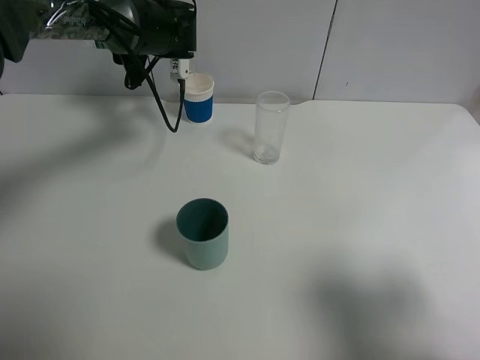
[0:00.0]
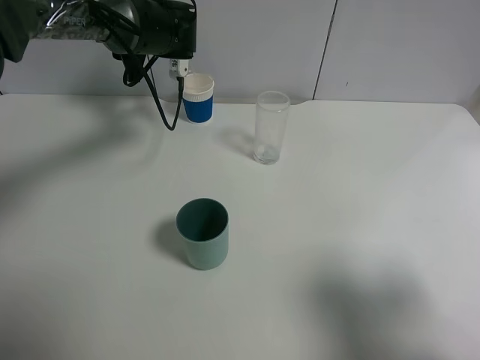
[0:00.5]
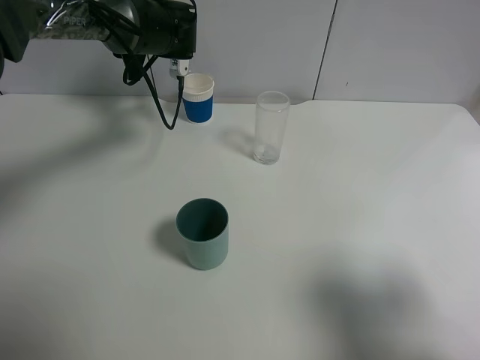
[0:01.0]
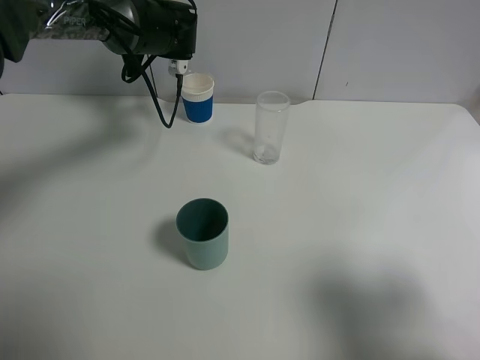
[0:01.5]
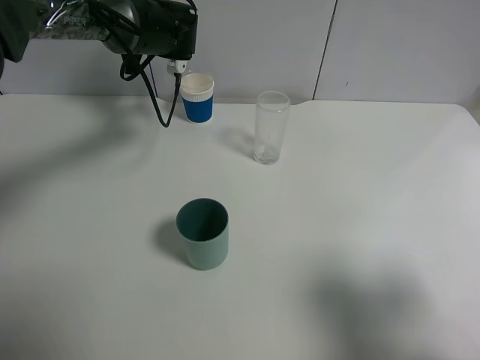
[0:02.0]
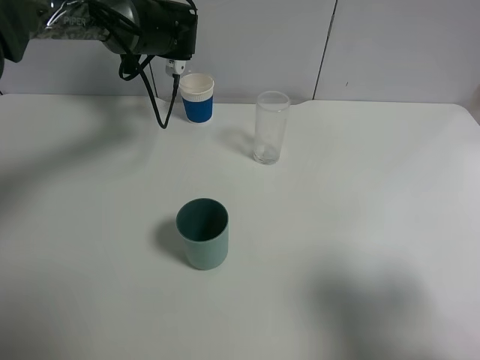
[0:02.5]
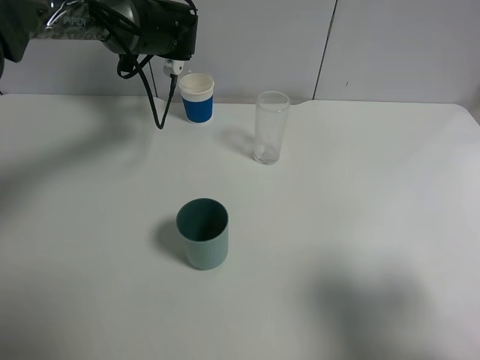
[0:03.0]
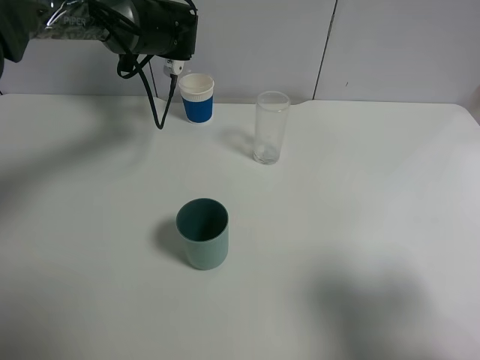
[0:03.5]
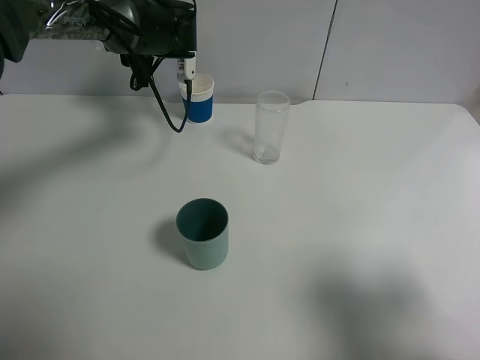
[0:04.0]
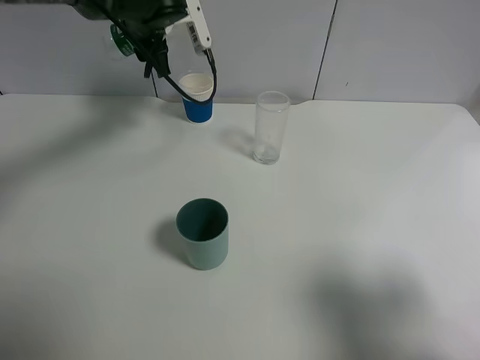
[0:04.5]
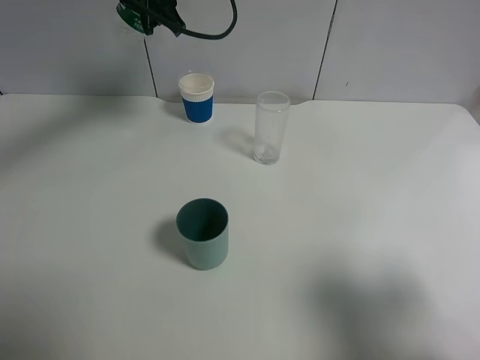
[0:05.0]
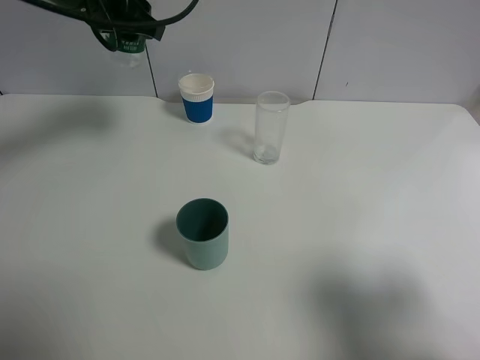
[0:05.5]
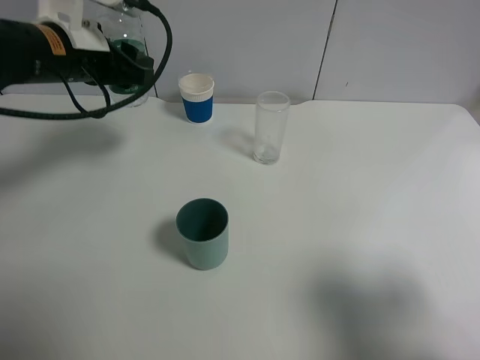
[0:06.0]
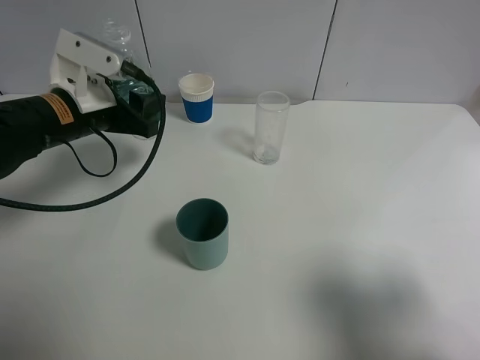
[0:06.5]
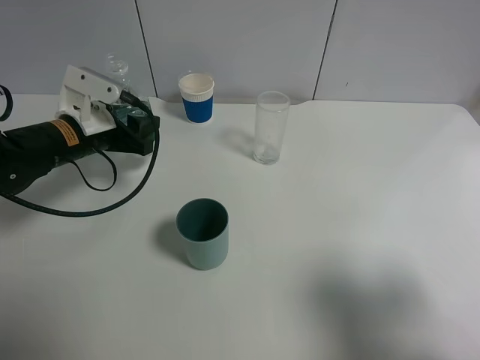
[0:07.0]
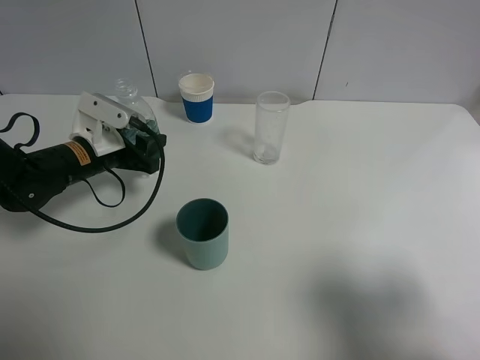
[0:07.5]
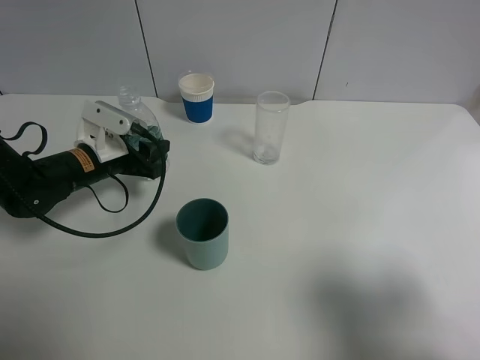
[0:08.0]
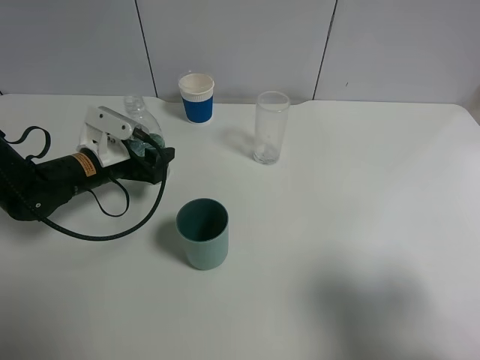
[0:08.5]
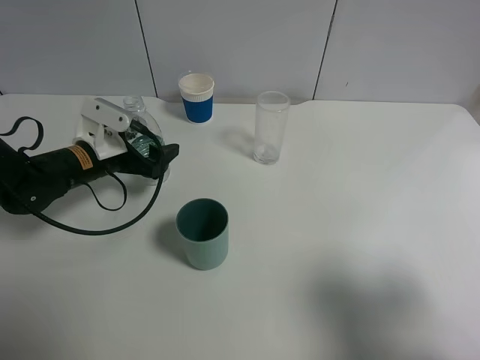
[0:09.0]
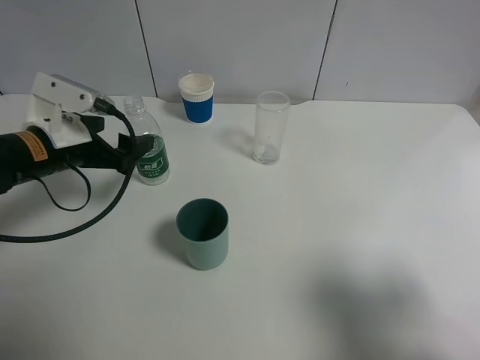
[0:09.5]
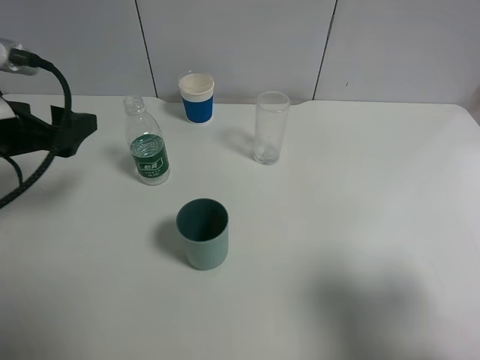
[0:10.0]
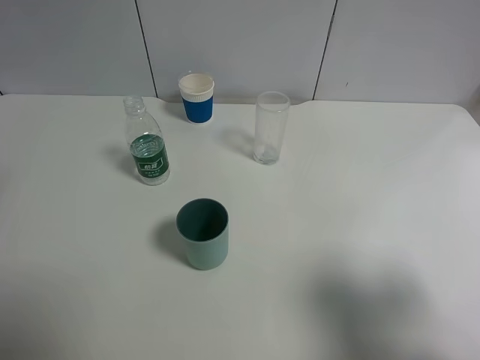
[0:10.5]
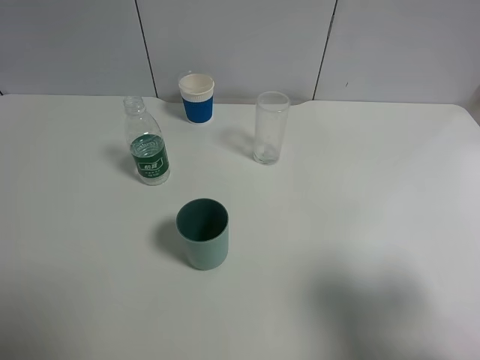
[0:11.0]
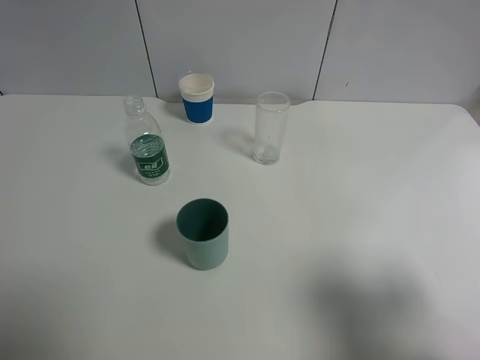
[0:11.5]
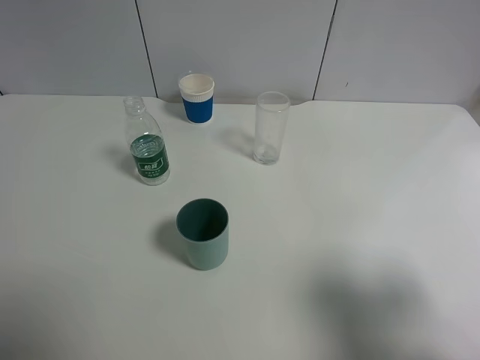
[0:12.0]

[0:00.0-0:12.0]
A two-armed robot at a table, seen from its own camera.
Task of the whole recording: use a gripper to hold the bottle of the drink and pour it into a random cup.
Step, 0:00.0 to 0:04.0: Pour the mineral water into the paper cup with the left gripper.
Step, 0:04.5 to 0:08.5: Place the mineral water bottle on the table with the left gripper.
0:00.0 to 0:04.0: The grippers move only a little.
0:04.0 to 0:06.0: The left gripper heads backward and to the left, covering approximately 15 cm.
0:06.0 to 0:08.0: The left gripper heads downward, covering about 15 cm.
0:08.0 to 0:10.0: The left gripper is displaced upward and backward by approximately 20 cm, and opens.
0:10.0 to 0:12.0: The left gripper travels backward and upward by approximately 25 cm.

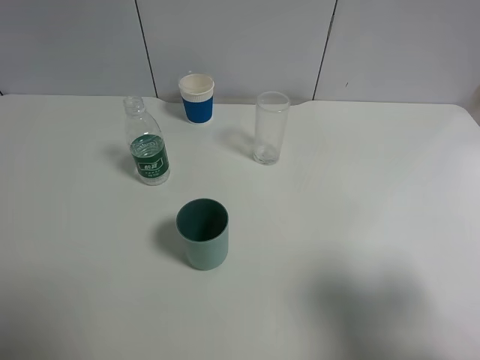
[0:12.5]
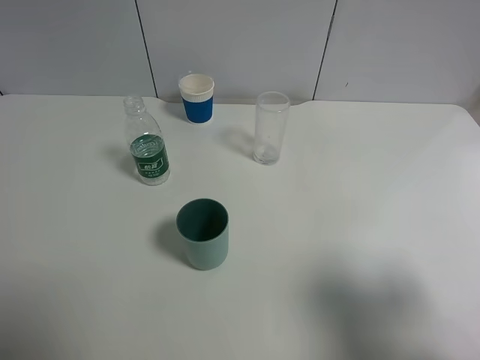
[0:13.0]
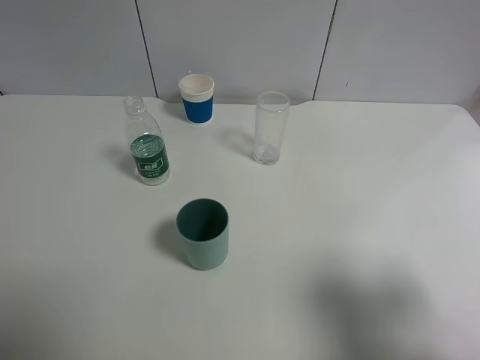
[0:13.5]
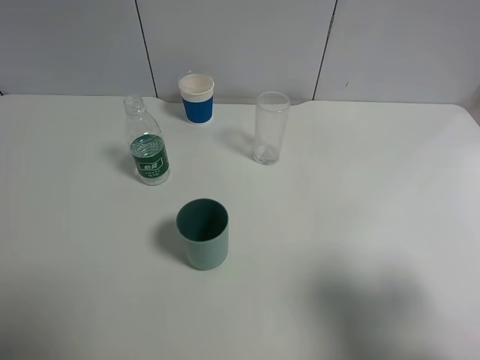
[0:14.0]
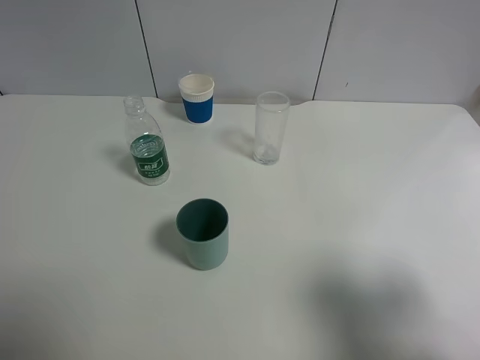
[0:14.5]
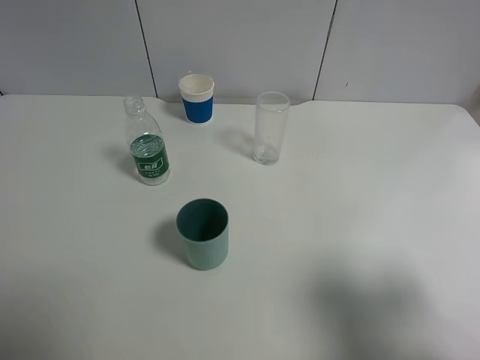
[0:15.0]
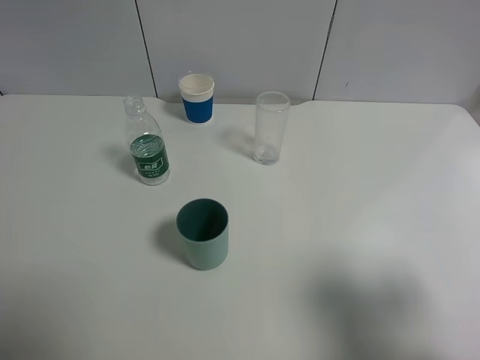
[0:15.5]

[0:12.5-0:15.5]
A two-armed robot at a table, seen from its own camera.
Task of the whole recording: use a gripper to hold the bottle of the drink and pour it into a random cup.
0:14.0 to 0:15.5: Neither gripper changes place.

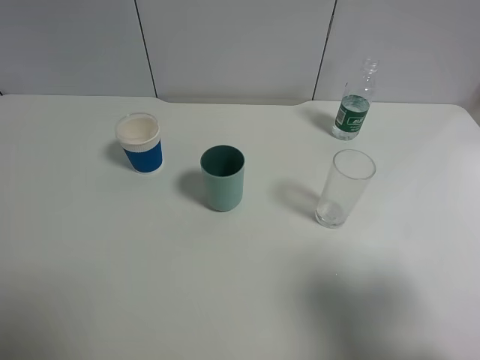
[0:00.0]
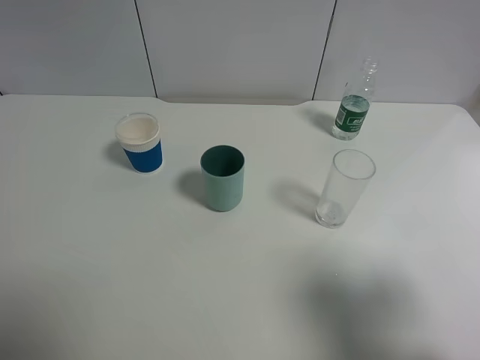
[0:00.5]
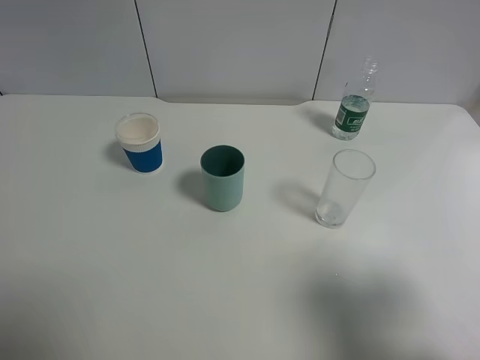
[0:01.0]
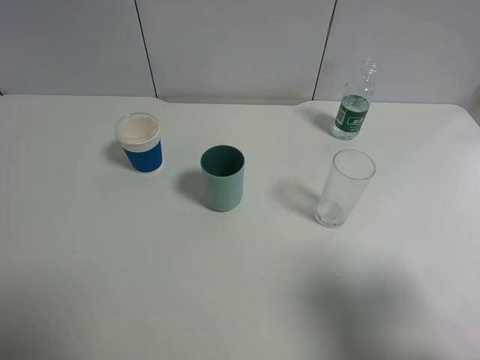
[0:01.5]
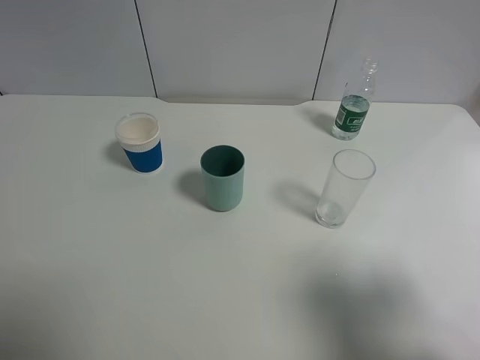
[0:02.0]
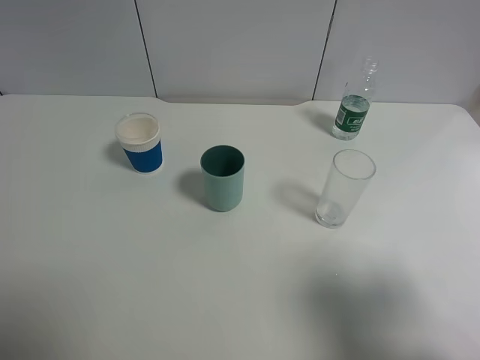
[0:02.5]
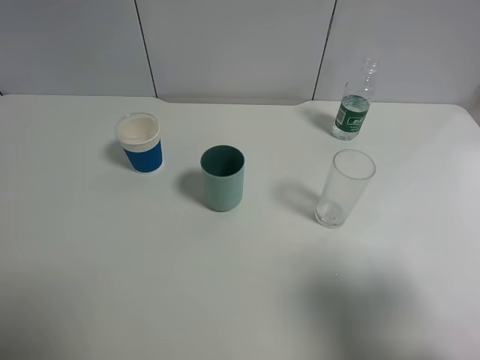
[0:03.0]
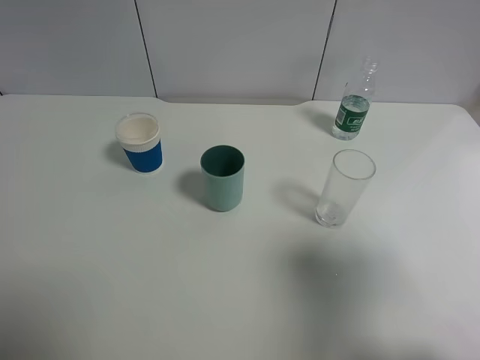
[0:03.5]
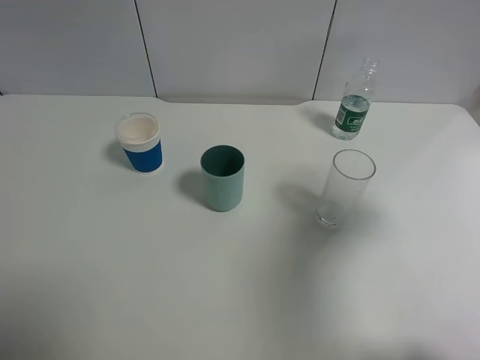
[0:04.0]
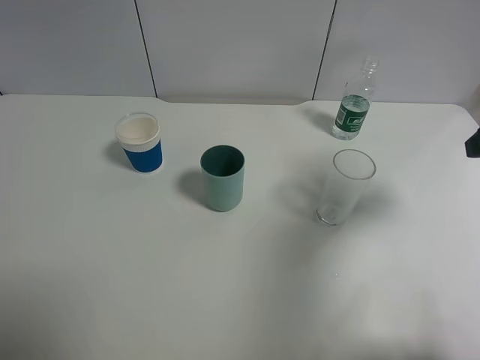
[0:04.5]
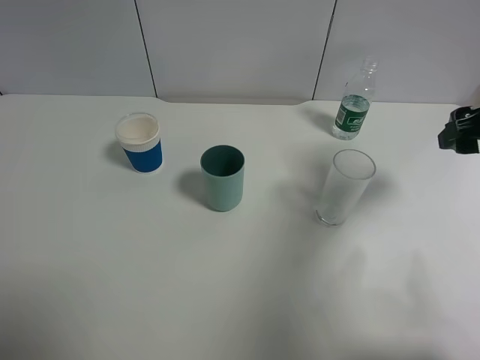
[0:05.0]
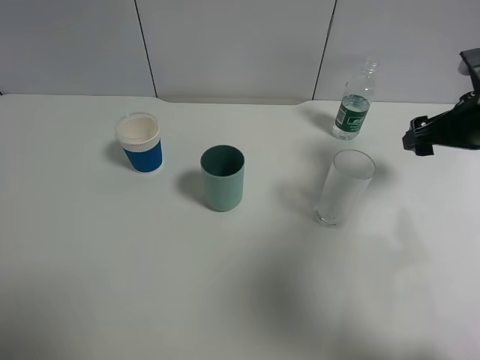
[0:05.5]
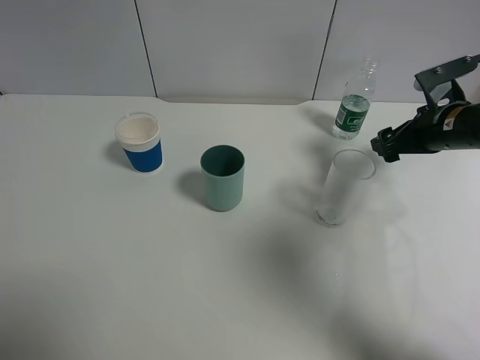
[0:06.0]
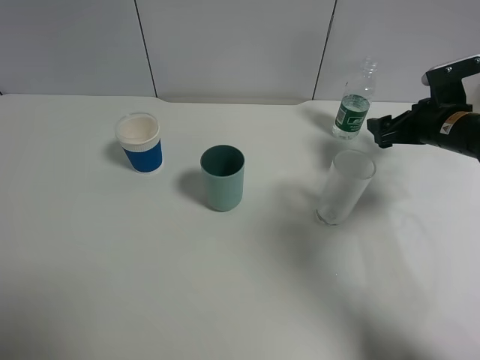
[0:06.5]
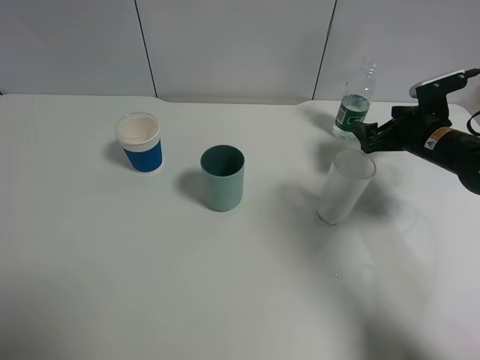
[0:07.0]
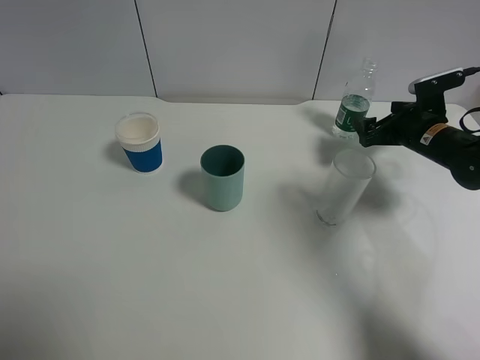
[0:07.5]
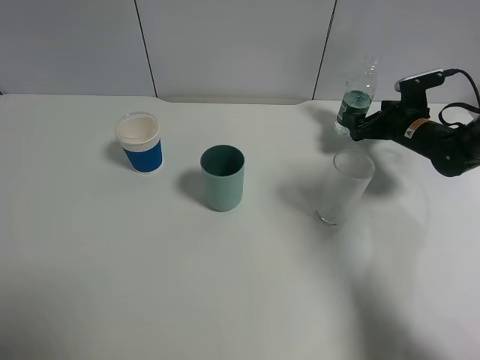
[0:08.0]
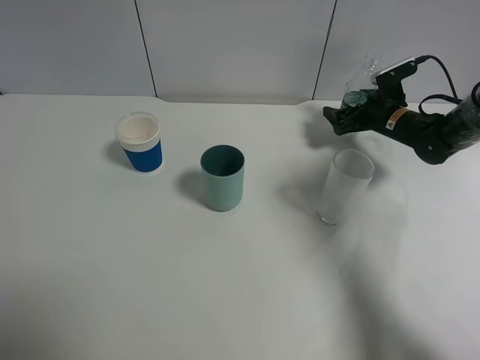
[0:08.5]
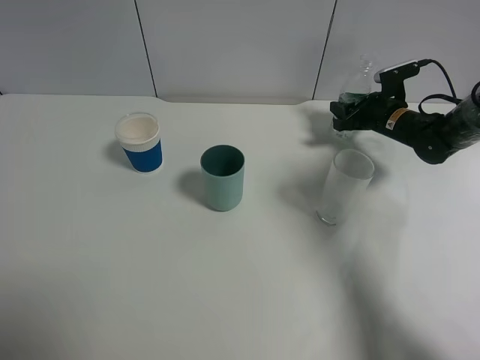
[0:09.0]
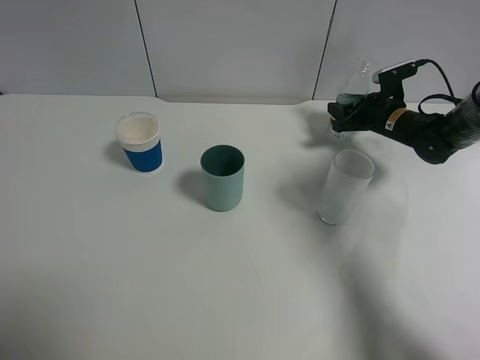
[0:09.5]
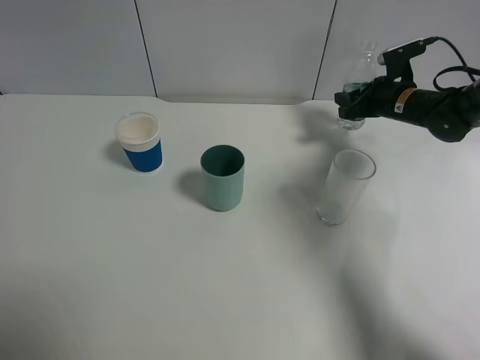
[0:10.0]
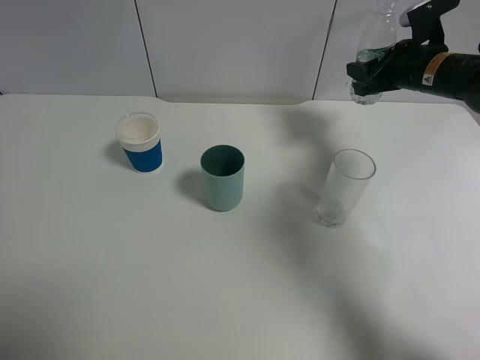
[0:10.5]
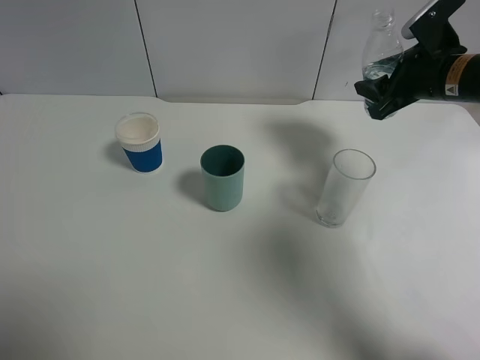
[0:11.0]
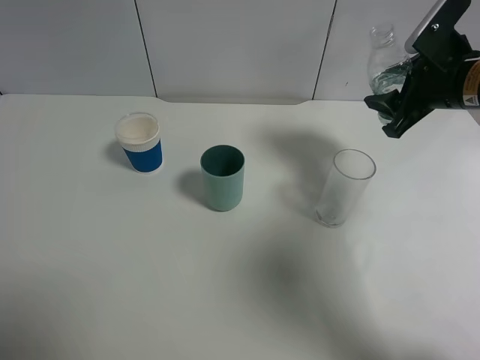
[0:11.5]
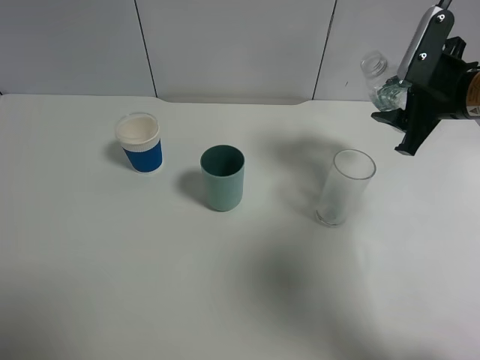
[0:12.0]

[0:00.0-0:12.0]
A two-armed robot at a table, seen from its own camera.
Task of the whole recording: use a gripper to hold the bottle of the drink and pour it into a random cup.
Step, 0:00.0 to 0:09.0: Grasp the mineral water bottle with the right gripper.
0:00.0 to 0:02.0: Neither gripper changes place.
0:02.0 to 0:04.0: The right gripper heads forward, covering some 15 cm.
0:04.0 to 0:06.0: The right gripper goes approximately 25 cm forward and downward.
0:06.0 to 0:08.0: The right gripper is displaced forward and downward by approximately 10 cm.
0:08.0 to 0:10.0: The right gripper shifts roughly 5 cm upward, and closes.
0:10.0 to 0:12.0: The right gripper is displaced backward and upward by approximately 15 cm.
